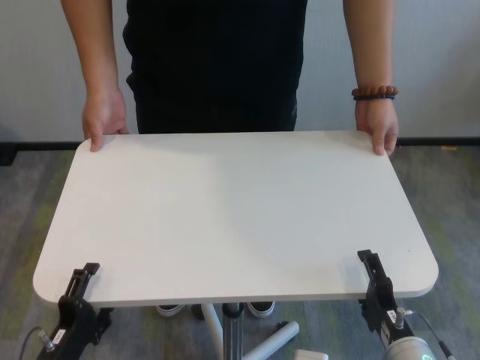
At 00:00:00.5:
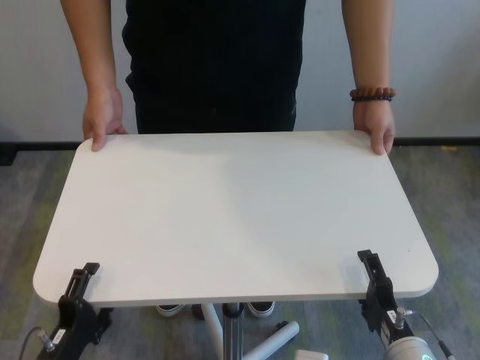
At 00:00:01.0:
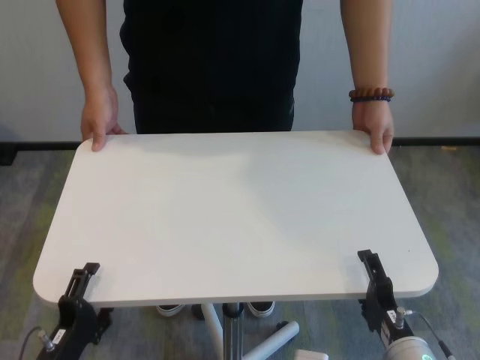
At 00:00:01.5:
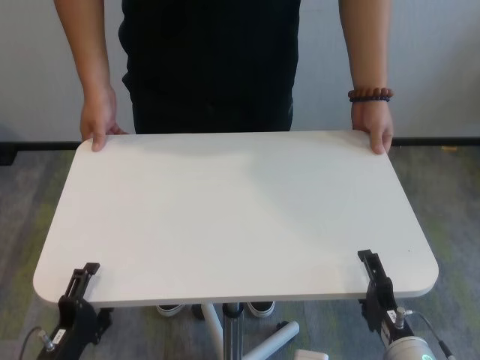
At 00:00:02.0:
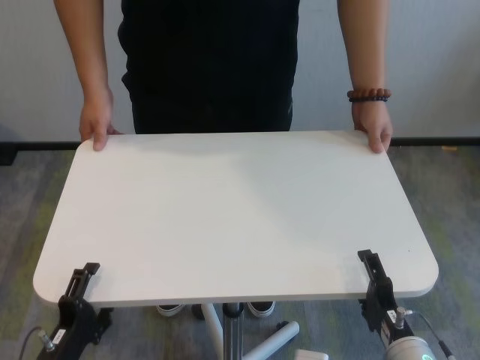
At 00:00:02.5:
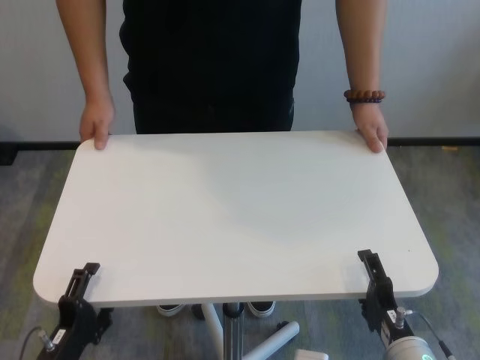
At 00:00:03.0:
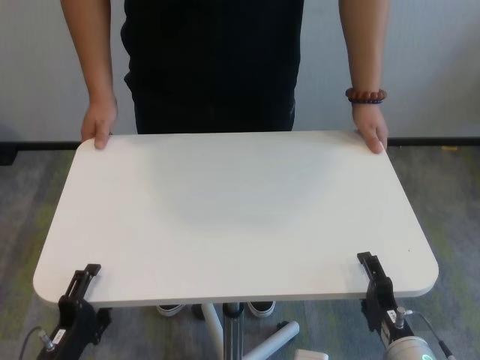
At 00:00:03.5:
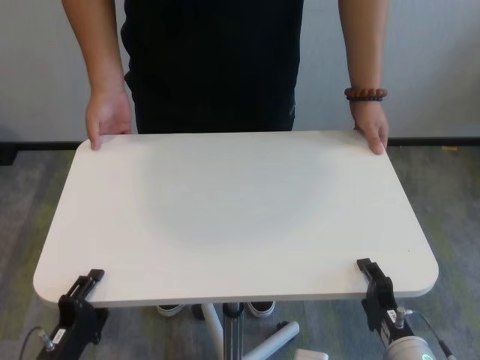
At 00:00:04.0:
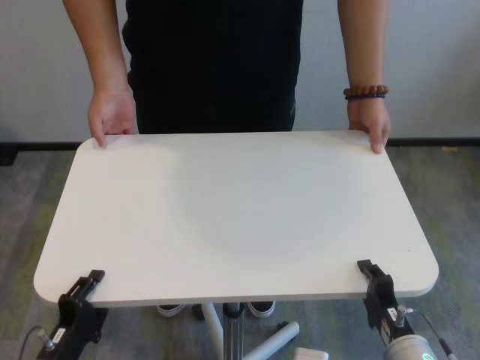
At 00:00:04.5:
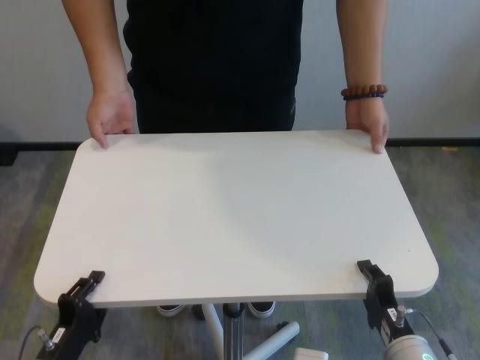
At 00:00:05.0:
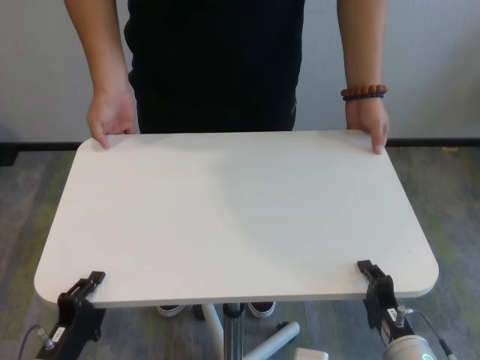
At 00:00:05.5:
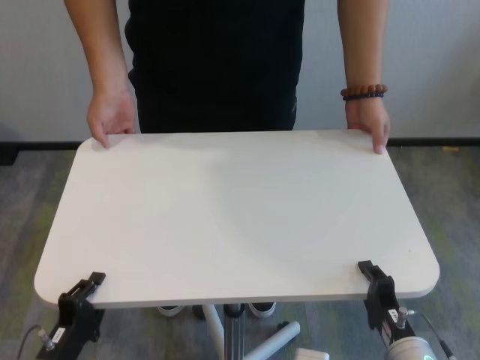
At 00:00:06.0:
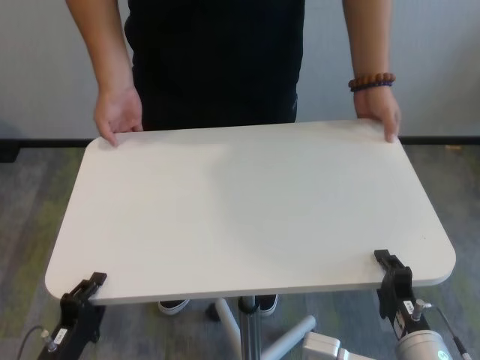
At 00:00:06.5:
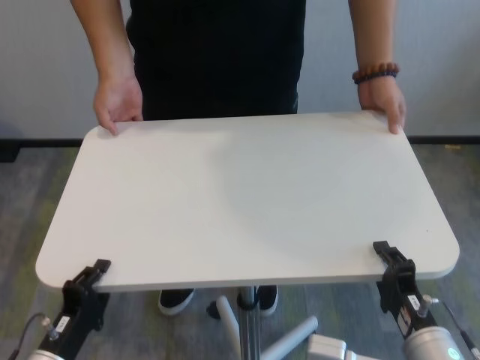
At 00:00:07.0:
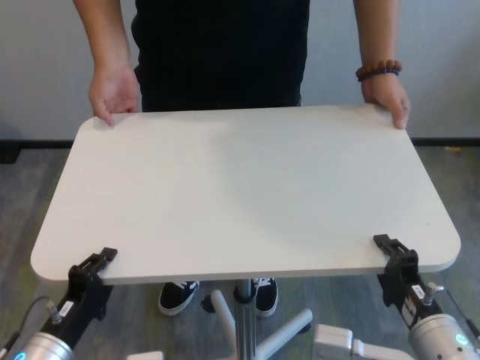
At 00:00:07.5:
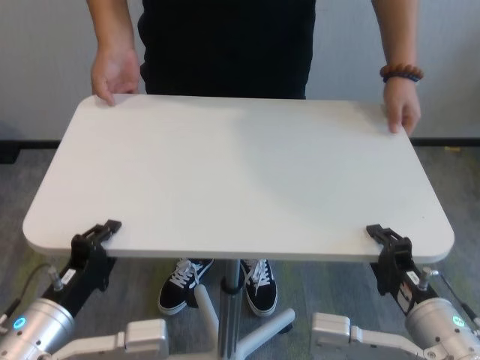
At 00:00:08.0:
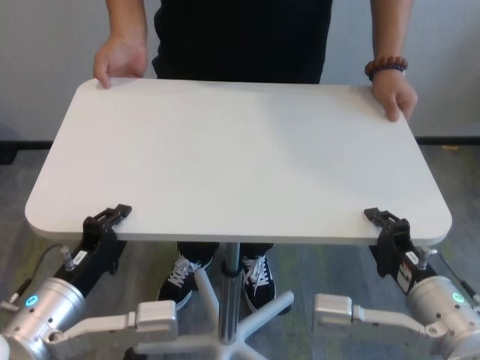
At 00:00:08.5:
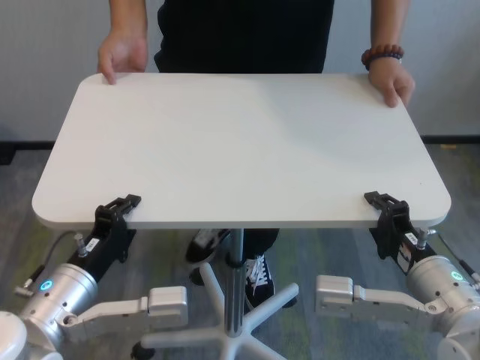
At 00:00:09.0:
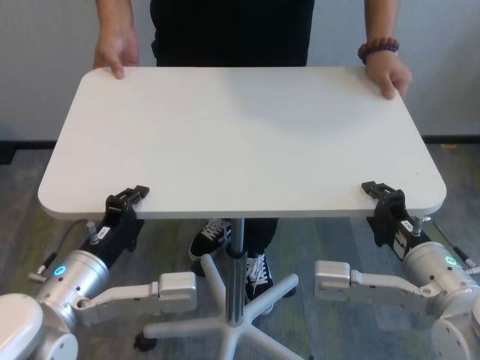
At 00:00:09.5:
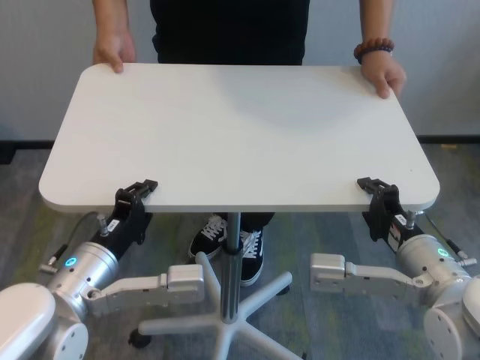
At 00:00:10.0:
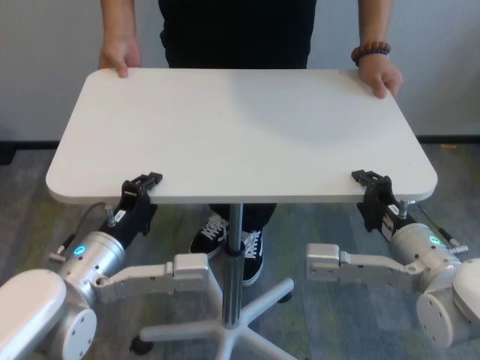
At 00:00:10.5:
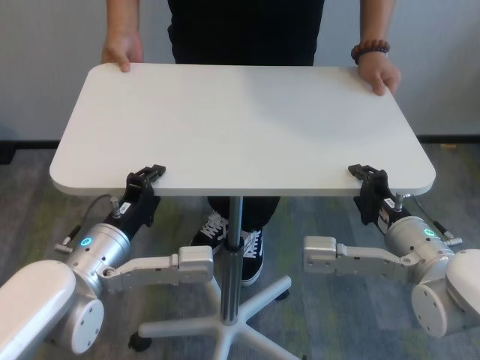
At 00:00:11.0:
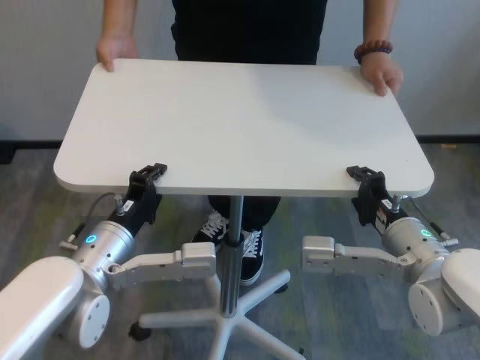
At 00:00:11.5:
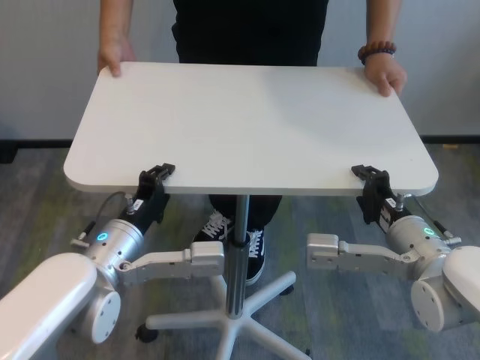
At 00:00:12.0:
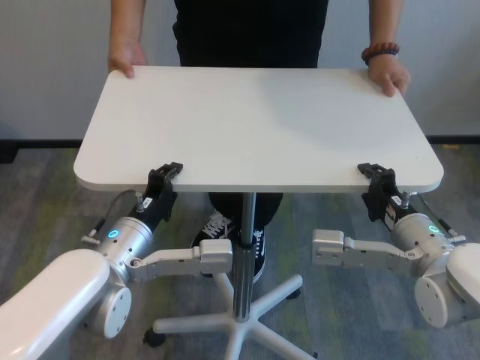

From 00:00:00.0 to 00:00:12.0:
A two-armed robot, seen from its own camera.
Task of the whole recording: human machine collaborative table moving.
Step, from 00:00:00.0 to 00:00:04.5: Grasp the table with both grippers.

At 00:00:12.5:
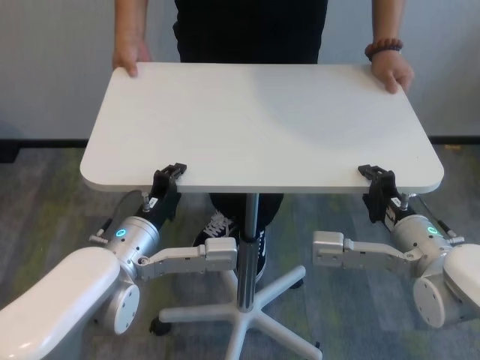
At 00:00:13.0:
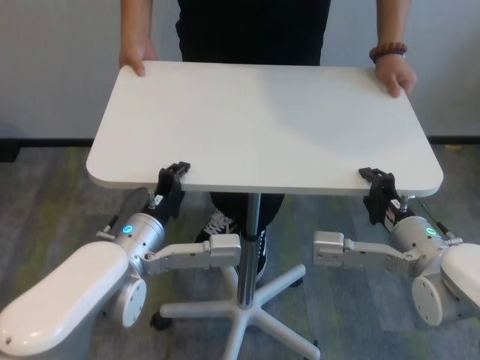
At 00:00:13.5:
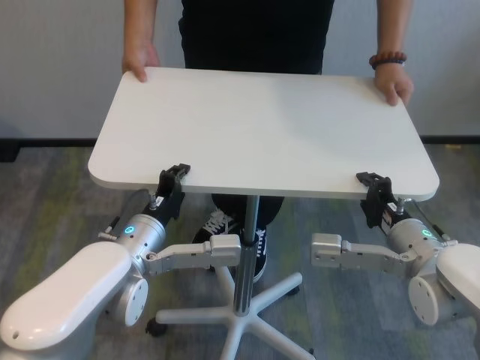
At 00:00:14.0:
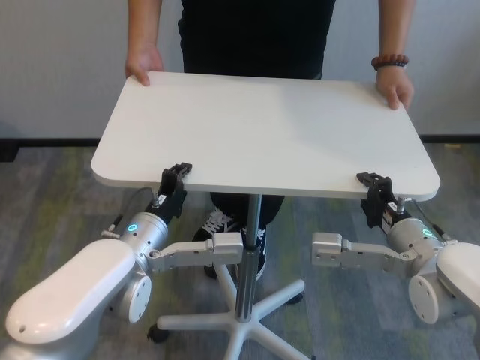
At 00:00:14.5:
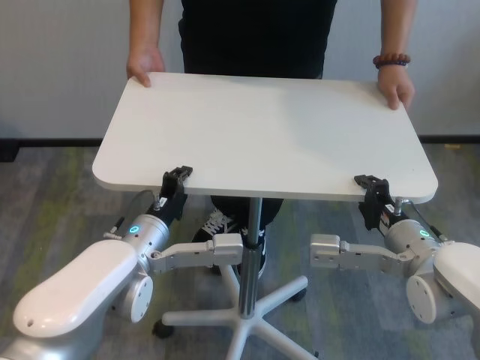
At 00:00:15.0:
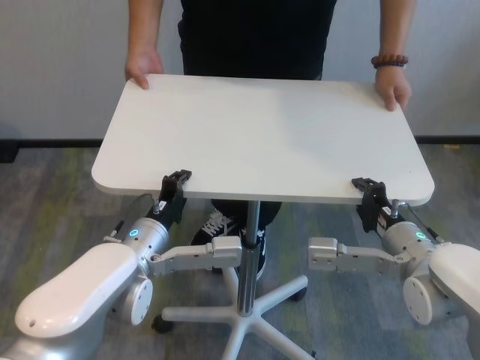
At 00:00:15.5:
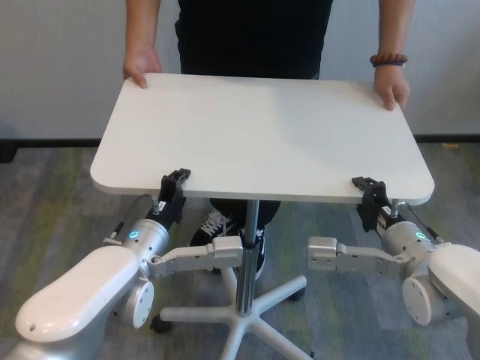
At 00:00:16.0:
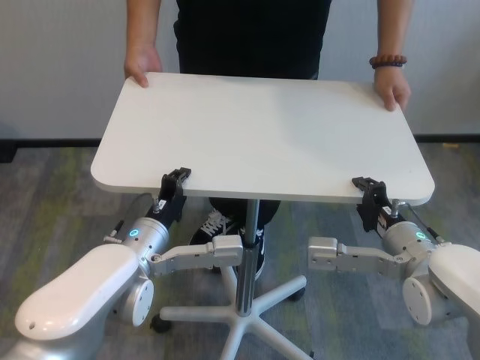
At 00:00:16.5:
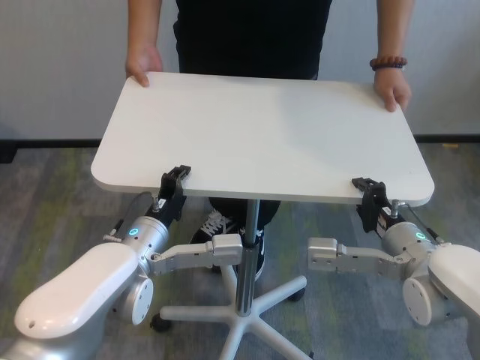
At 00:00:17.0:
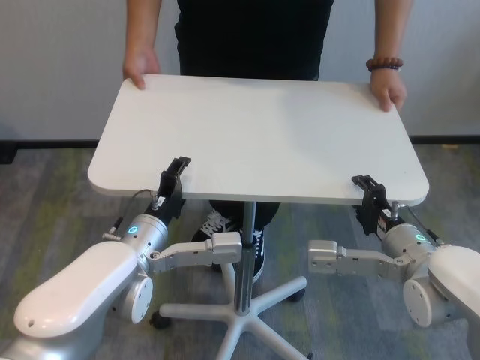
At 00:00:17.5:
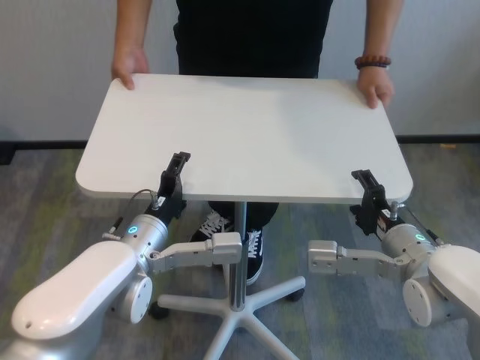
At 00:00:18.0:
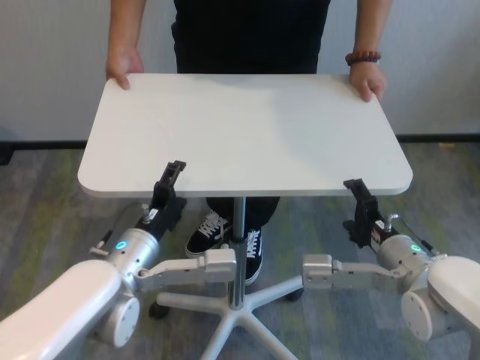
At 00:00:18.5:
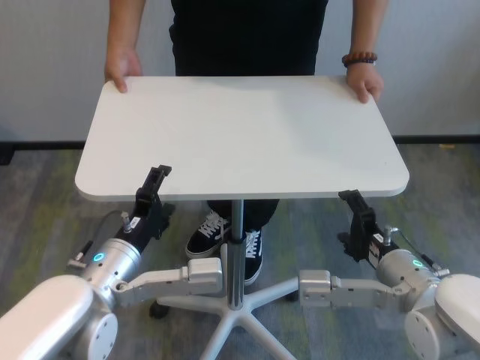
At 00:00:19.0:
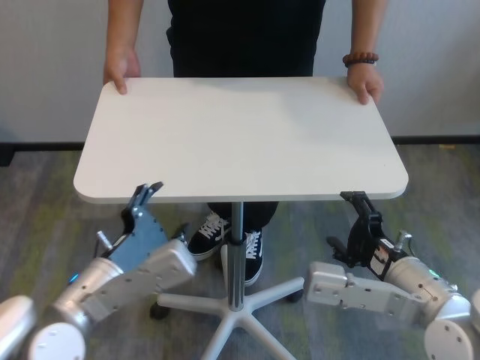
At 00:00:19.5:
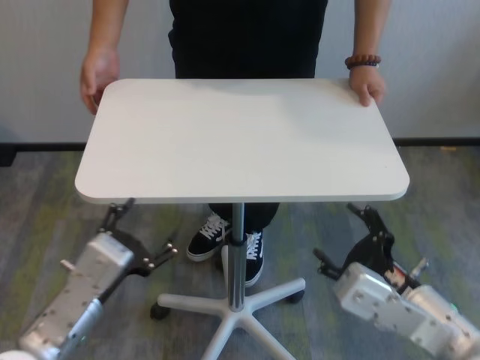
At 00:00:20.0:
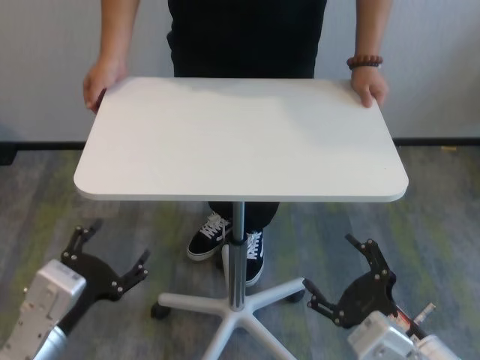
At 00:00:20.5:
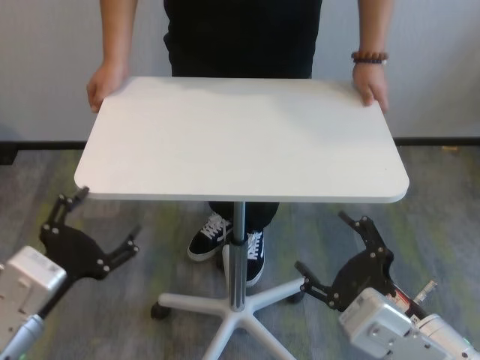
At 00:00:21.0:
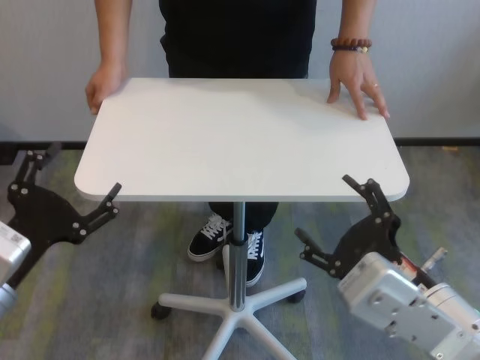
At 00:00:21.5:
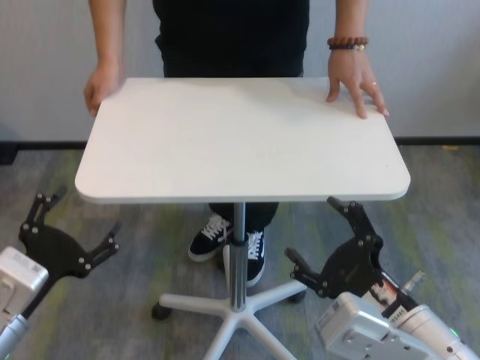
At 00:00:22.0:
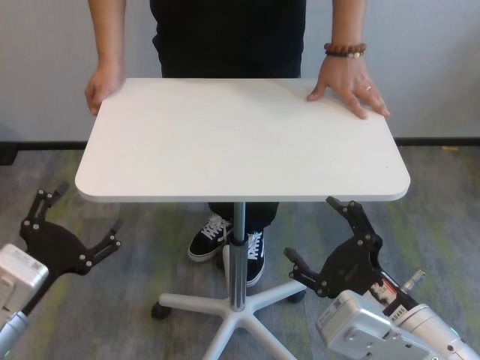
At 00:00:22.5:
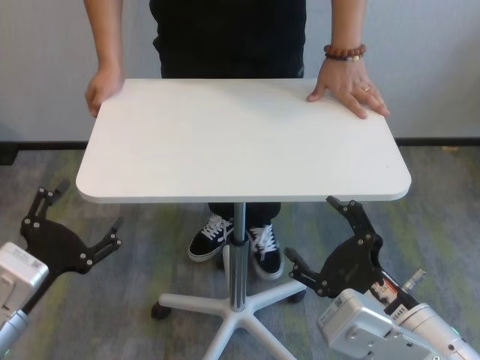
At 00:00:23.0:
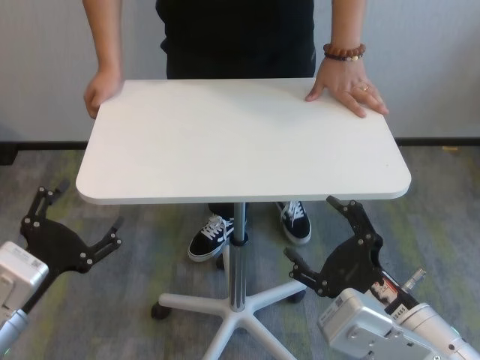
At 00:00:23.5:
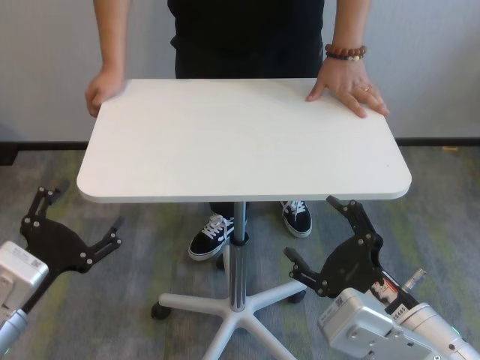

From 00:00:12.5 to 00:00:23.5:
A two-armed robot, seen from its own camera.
Task of the whole recording: human machine collaborative table moving.
Step, from 00:00:12.5 to 00:00:17.5: Move the table forward with both grippers.
